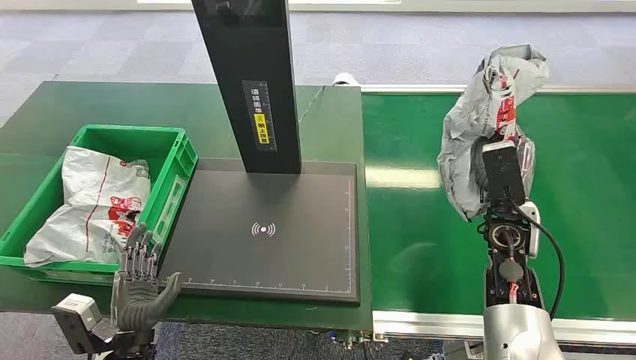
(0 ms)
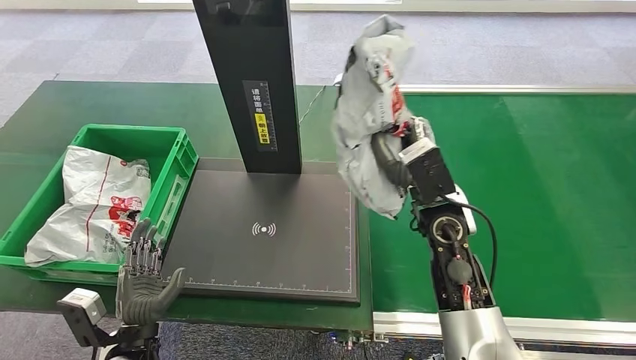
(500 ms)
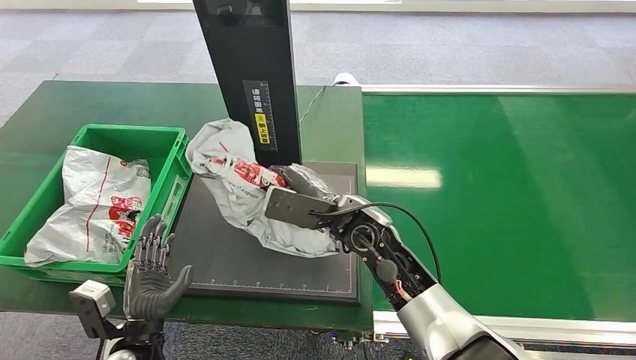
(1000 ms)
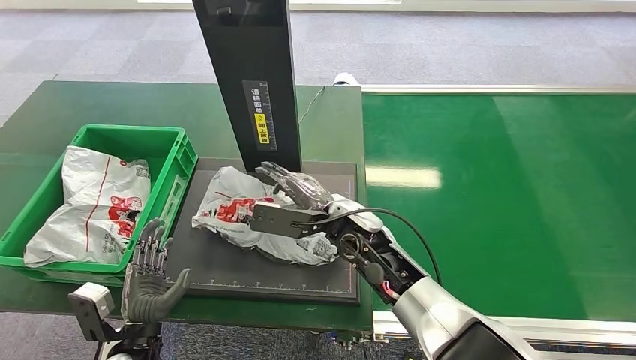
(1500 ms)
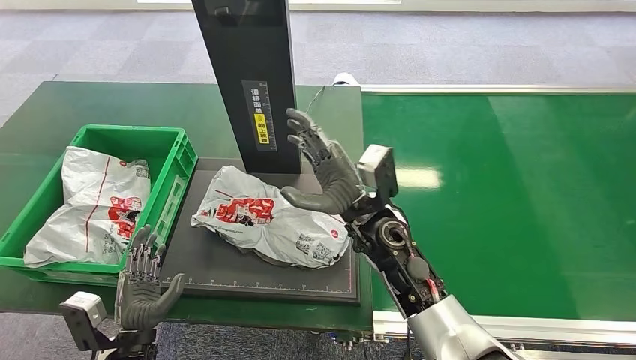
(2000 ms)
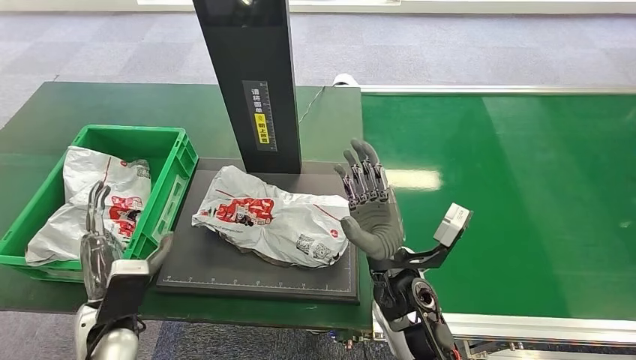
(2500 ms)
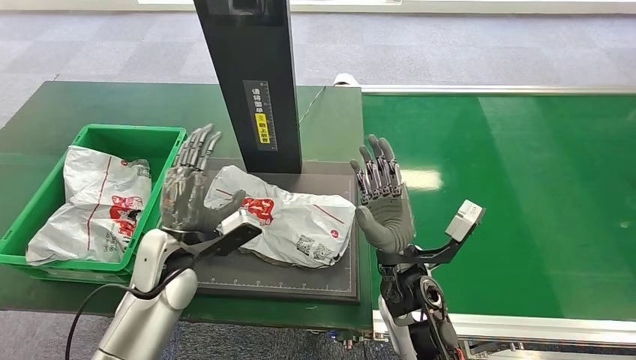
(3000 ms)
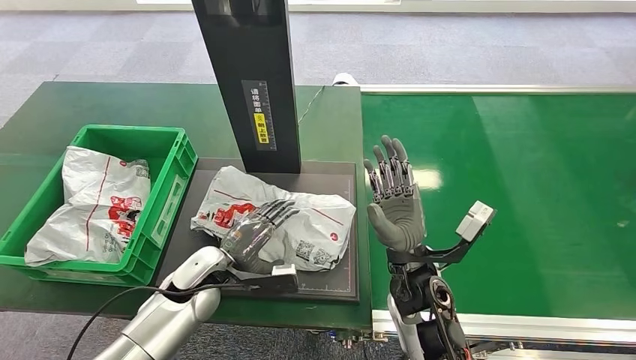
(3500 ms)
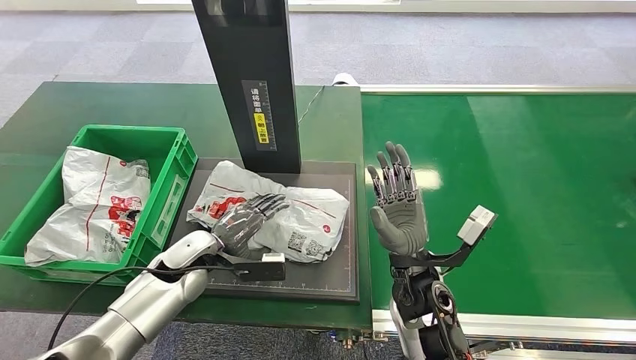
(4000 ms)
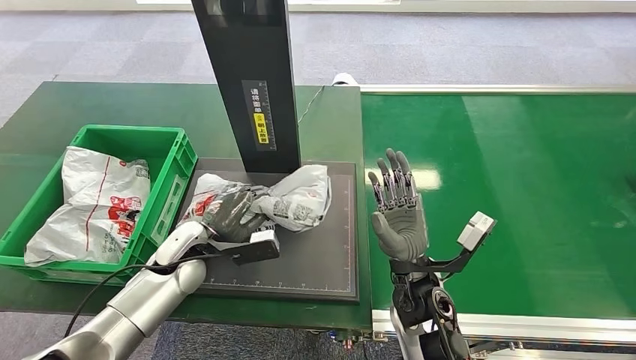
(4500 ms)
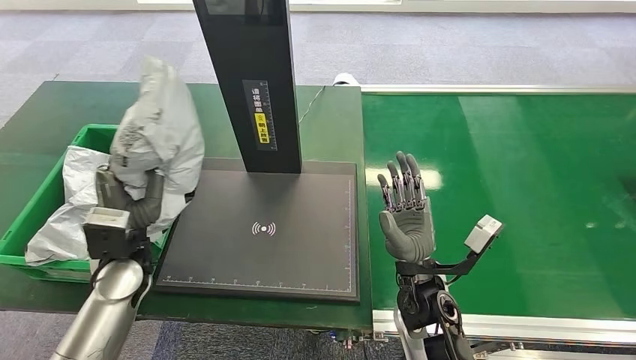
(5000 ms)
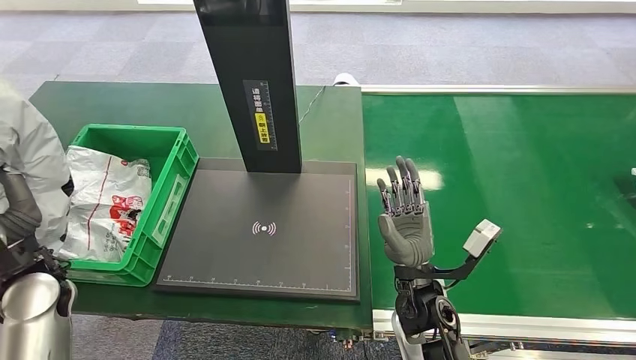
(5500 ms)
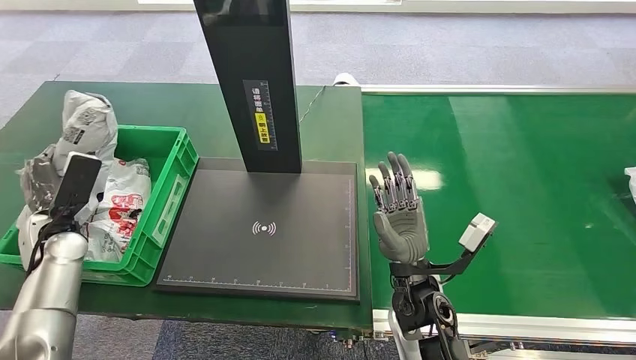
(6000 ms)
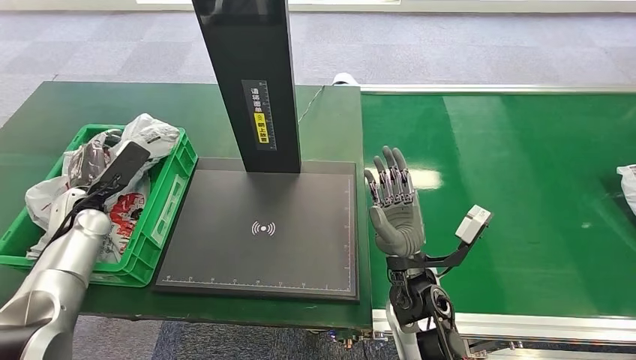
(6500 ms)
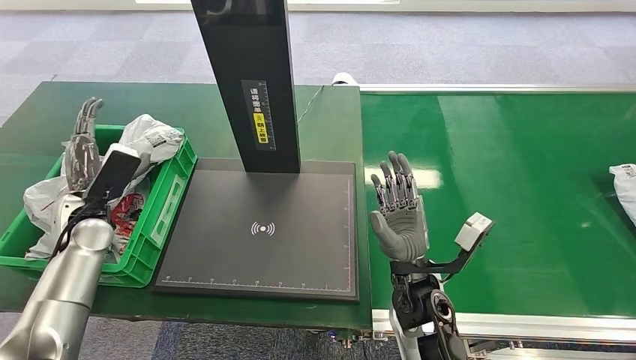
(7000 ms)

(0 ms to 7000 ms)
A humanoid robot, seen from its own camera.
2000 ms - 3500 ms: The right hand goes some 5 cm backward. The left hand moves forward and to the right, some 15 cm.
